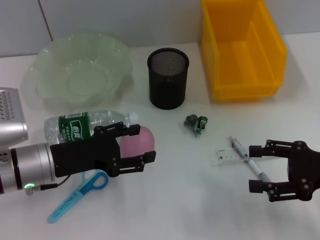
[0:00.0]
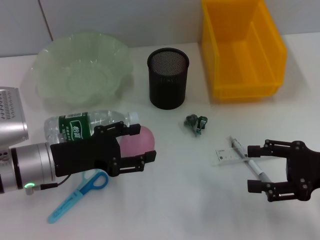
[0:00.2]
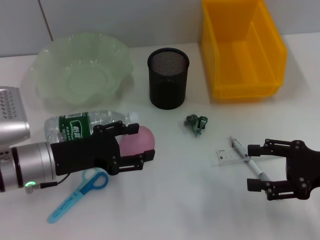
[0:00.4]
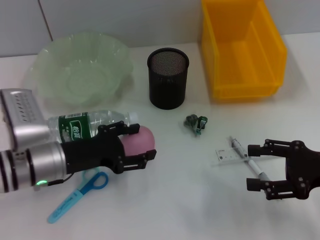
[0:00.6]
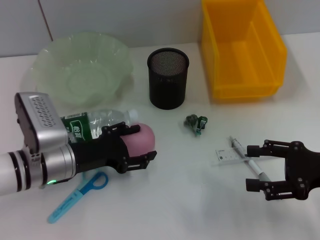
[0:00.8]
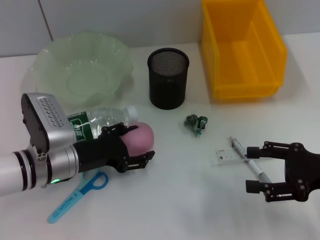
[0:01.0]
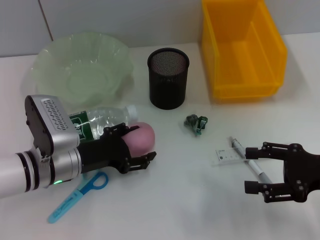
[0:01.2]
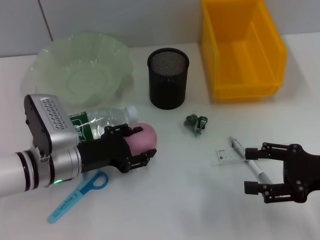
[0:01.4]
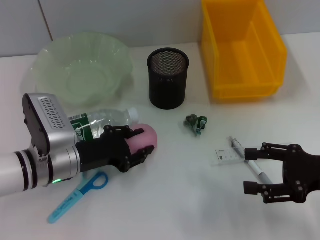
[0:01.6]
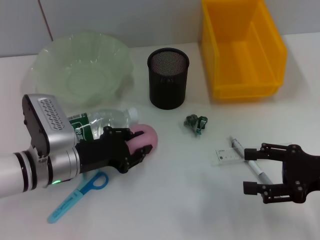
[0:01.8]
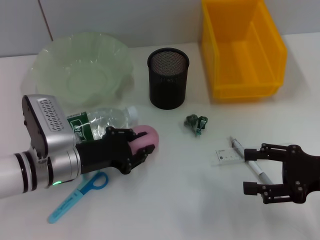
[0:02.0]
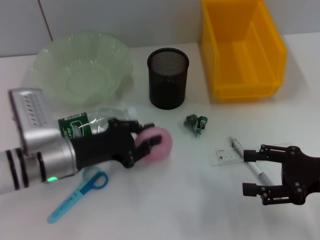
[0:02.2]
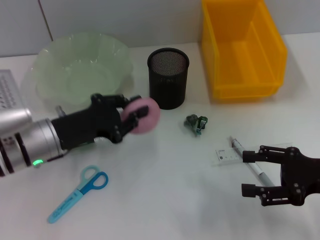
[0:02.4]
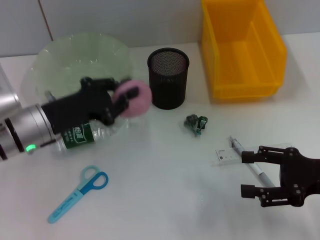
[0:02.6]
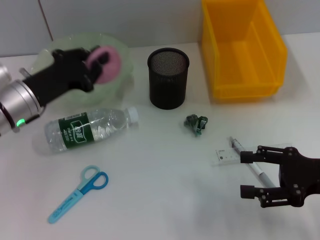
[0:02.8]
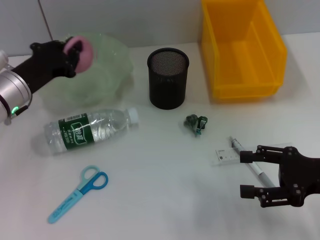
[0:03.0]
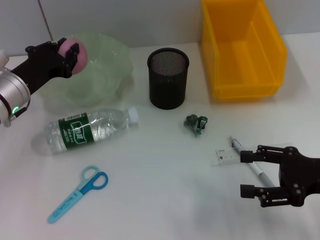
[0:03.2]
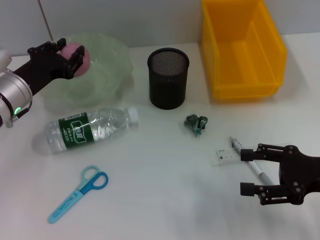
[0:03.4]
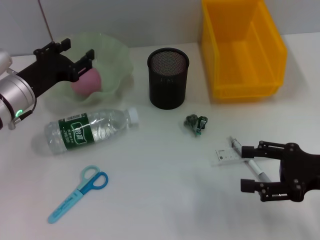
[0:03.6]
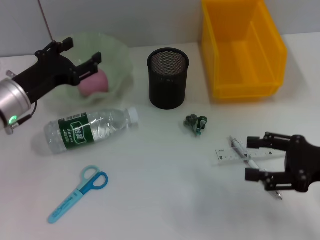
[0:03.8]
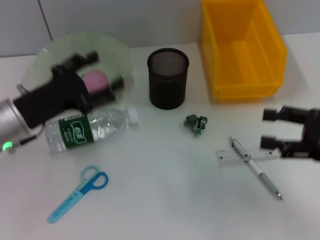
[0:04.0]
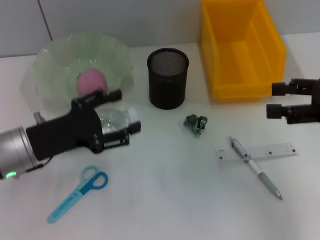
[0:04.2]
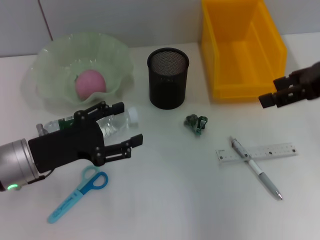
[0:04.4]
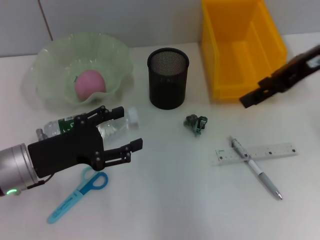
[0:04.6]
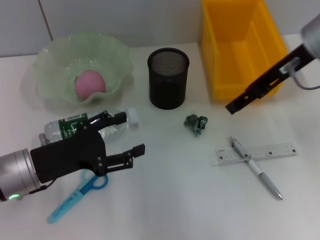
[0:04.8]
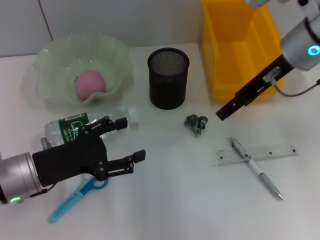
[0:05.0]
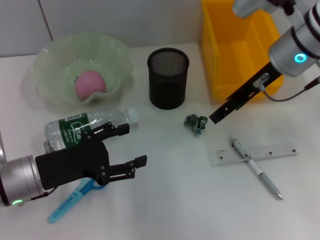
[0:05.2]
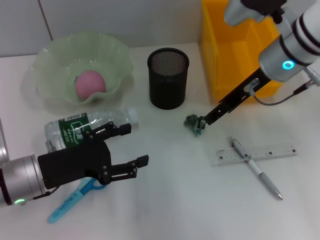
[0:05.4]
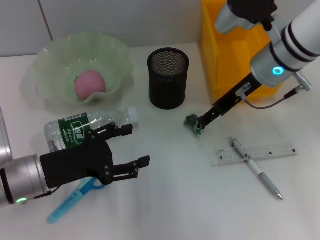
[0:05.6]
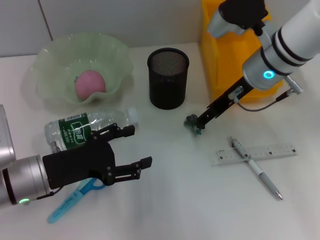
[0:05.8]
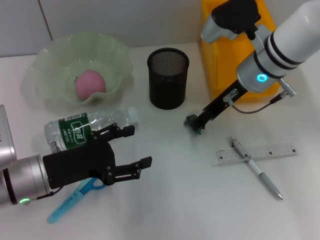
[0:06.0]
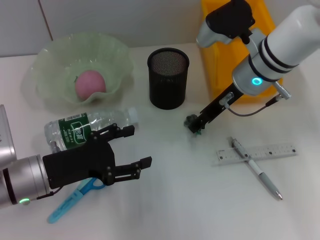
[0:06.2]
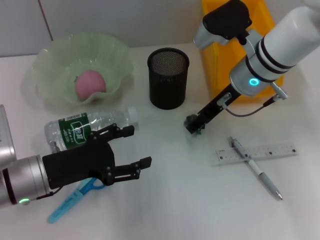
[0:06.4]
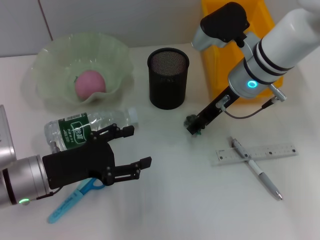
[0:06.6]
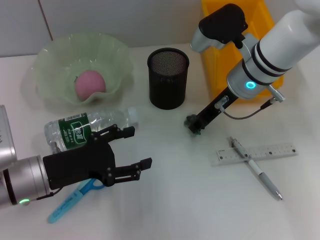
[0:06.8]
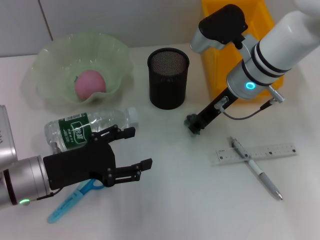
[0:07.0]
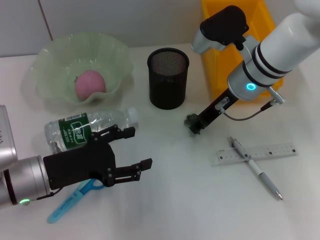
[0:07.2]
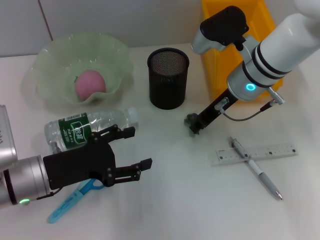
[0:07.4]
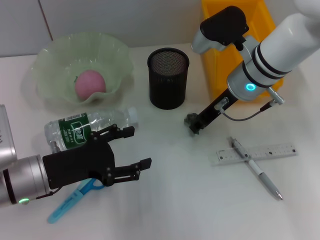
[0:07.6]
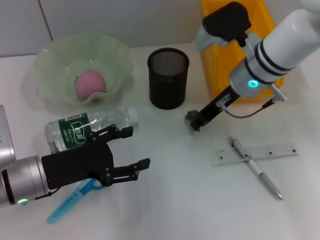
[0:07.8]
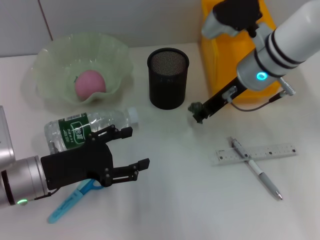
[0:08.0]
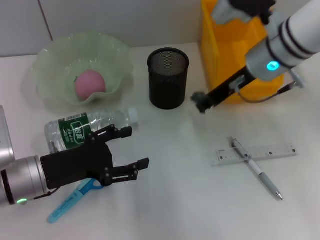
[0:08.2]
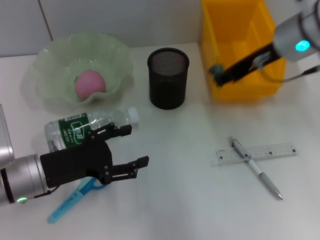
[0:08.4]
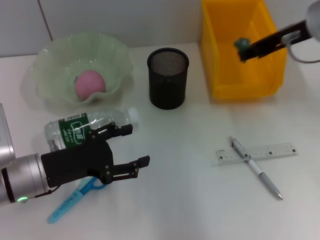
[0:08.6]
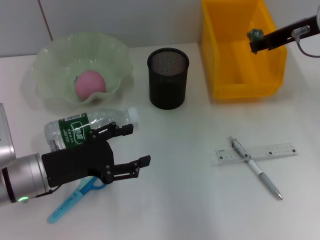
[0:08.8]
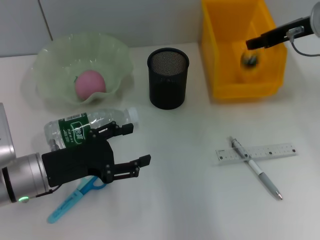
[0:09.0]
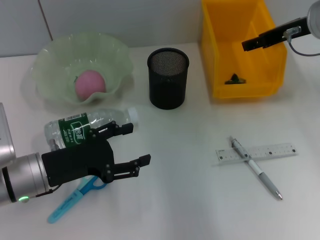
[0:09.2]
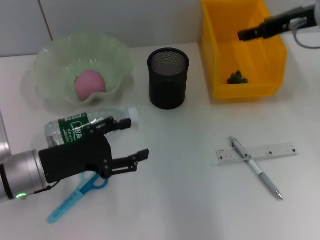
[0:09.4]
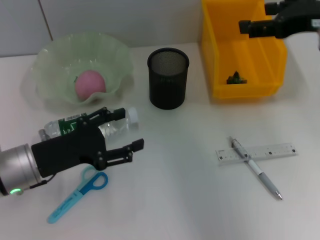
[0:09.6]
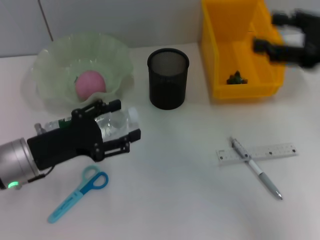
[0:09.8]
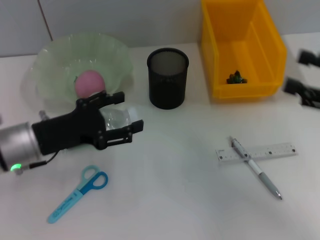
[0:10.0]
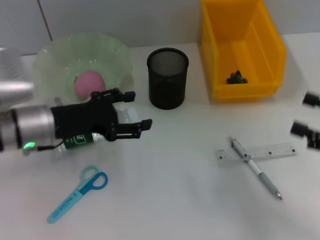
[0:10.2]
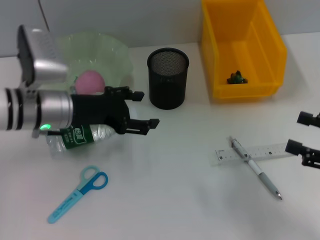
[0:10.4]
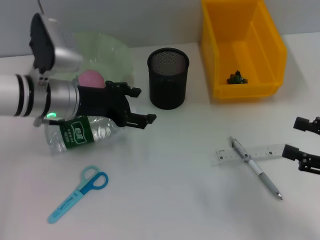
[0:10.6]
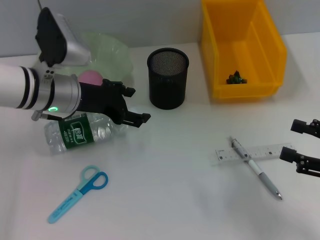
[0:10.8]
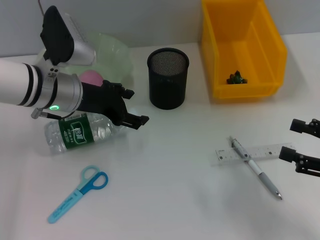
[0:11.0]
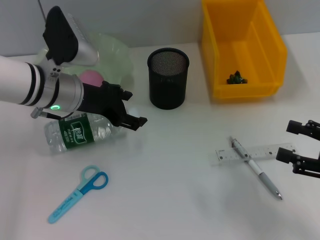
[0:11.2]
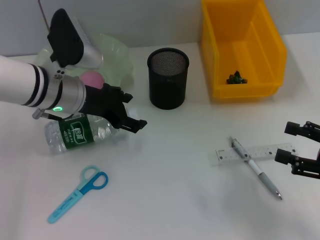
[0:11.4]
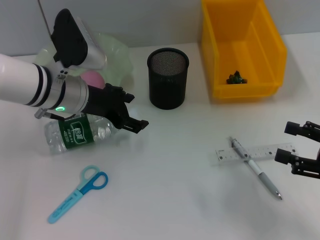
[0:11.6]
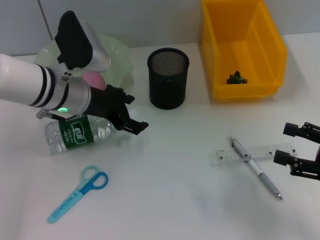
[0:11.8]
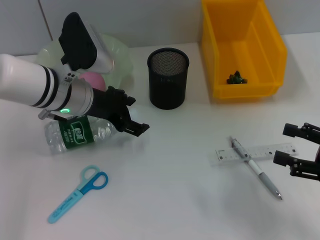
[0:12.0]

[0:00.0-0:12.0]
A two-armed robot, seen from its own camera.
Step, 0:00.0 to 0:02.0: Grab the peach with the left hand.
Step, 0:02.2 to 0:03.4: Place the peach into the fruit bowl with the left hand.
Step, 0:03.8 to 0:07.8: Grab the plastic with the right hand.
Step, 0:08.0 to 0:09.0: Place the plastic into the trash can with the right hand.
0:00.0 to 0:01.6: The grippers stay close to where they were, moving slightly.
0:01.6 to 0:03.0: The left gripper heads forward, to the left and upward, covering about 10 cm, and closes its fingers.
0:03.0 to 0:04.4: The left gripper heads backward, covering some 10 cm, and opens its fingers. Meanwhile the right gripper heads upward and forward, covering approximately 20 cm.
0:04.4 to 0:06.0: The right gripper travels to the left, downward and forward by some 20 cm.
0:06.0 to 0:07.6: The right gripper closes its fingers.
0:07.6 to 0:09.0: The right gripper is displaced to the right and upward by approximately 15 cm.
0:09.0 to 0:10.4: The right gripper goes roughly 25 cm backward, downward and to the right, and opens up. Meanwhile the left gripper moves forward and upward, some 10 cm.

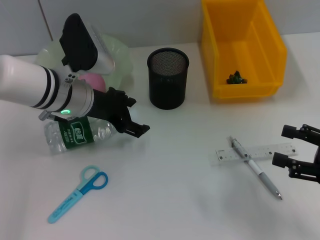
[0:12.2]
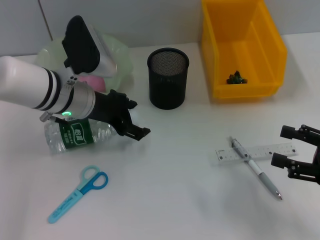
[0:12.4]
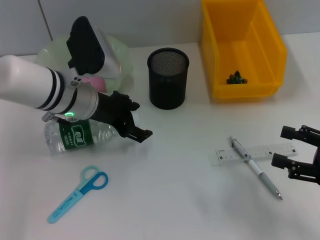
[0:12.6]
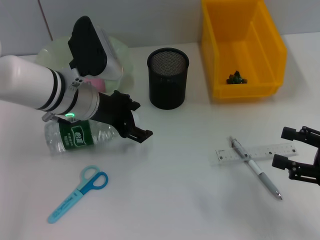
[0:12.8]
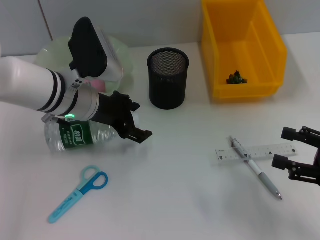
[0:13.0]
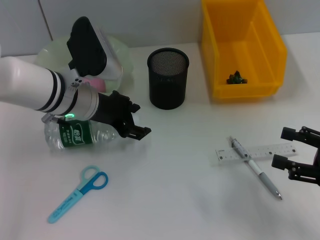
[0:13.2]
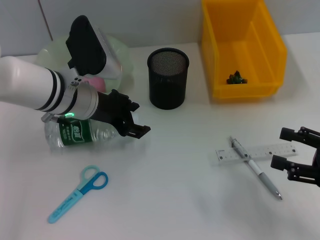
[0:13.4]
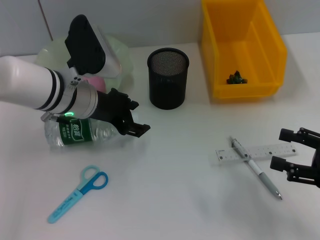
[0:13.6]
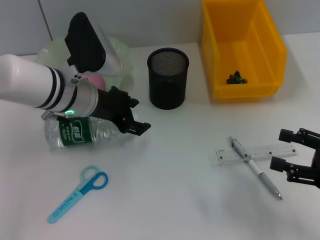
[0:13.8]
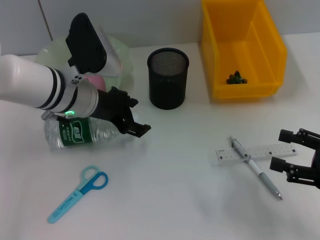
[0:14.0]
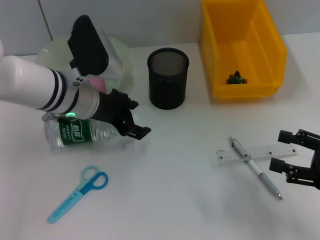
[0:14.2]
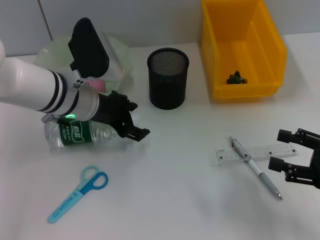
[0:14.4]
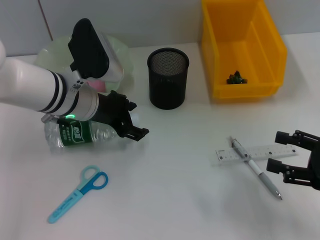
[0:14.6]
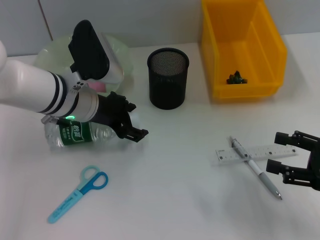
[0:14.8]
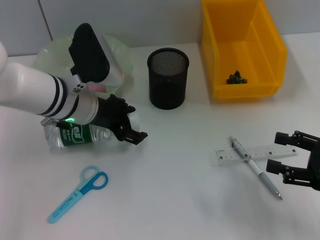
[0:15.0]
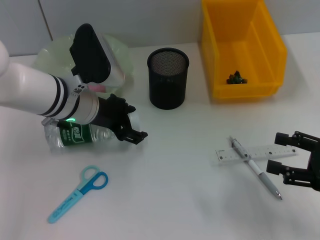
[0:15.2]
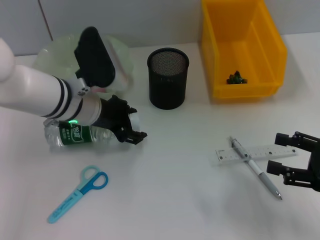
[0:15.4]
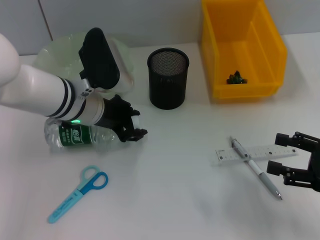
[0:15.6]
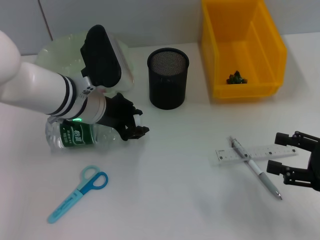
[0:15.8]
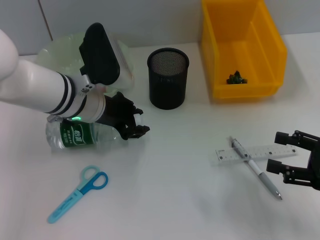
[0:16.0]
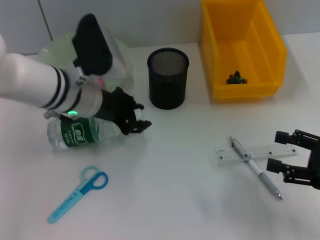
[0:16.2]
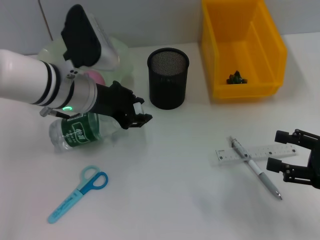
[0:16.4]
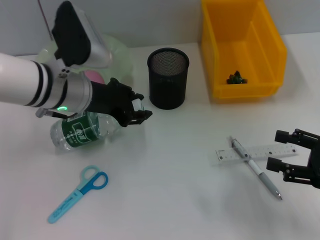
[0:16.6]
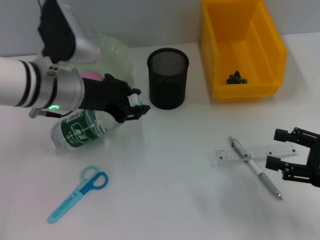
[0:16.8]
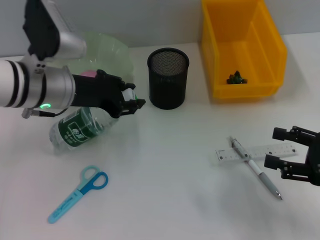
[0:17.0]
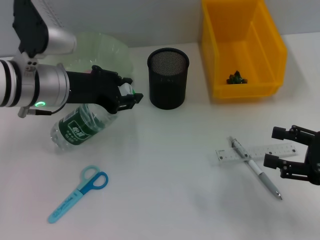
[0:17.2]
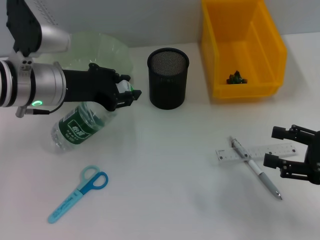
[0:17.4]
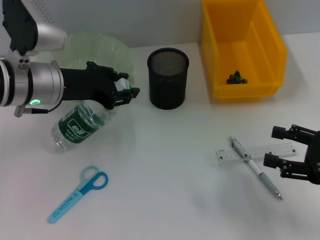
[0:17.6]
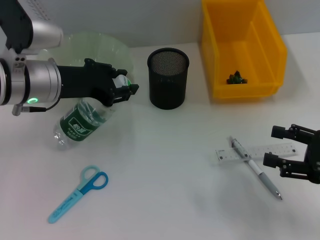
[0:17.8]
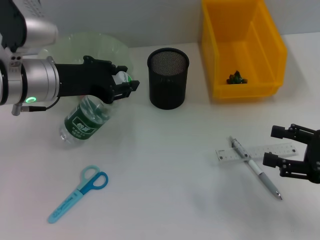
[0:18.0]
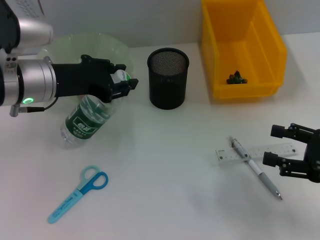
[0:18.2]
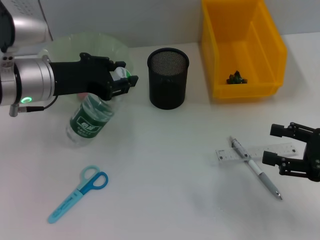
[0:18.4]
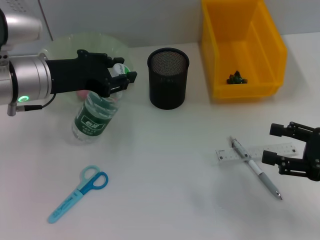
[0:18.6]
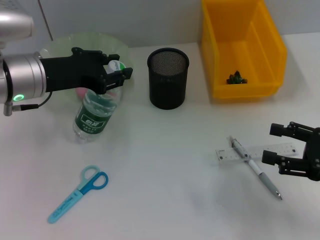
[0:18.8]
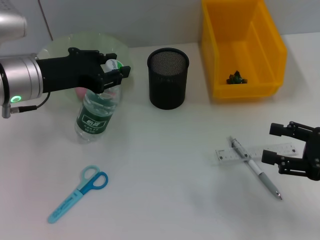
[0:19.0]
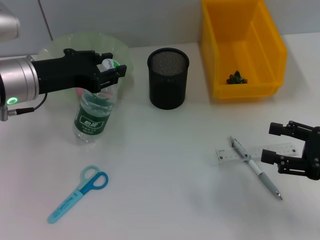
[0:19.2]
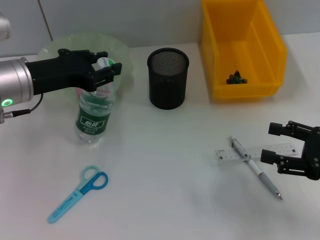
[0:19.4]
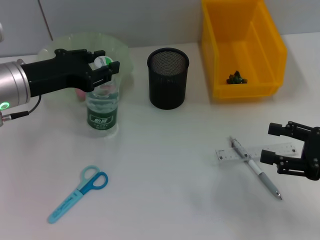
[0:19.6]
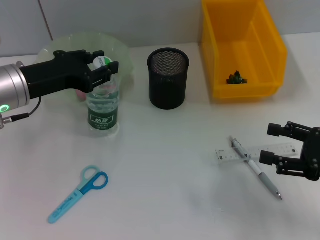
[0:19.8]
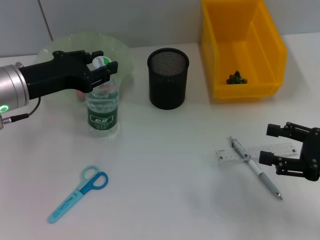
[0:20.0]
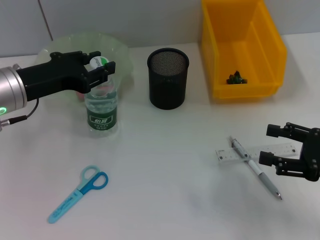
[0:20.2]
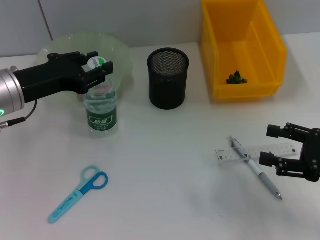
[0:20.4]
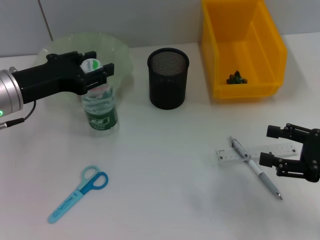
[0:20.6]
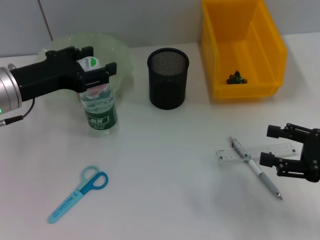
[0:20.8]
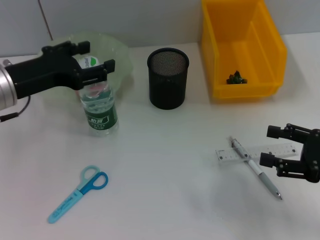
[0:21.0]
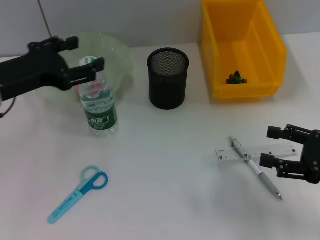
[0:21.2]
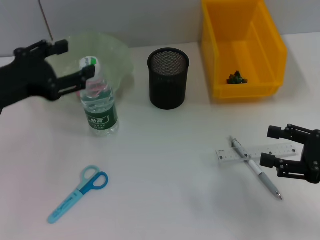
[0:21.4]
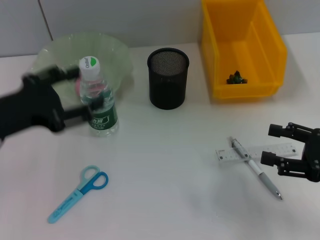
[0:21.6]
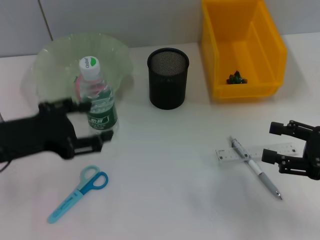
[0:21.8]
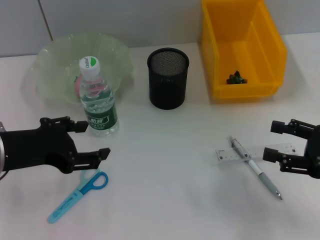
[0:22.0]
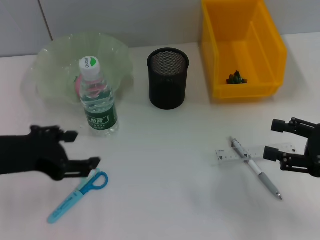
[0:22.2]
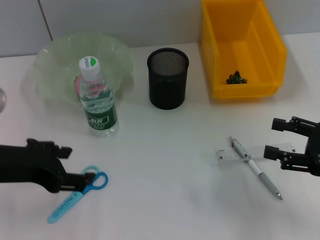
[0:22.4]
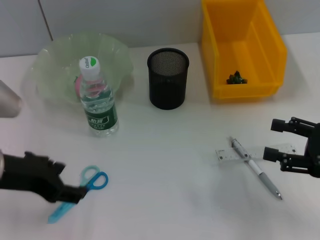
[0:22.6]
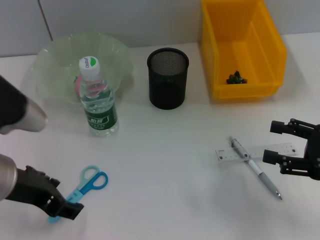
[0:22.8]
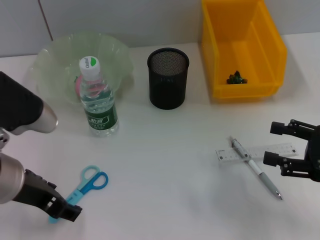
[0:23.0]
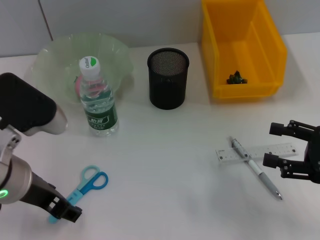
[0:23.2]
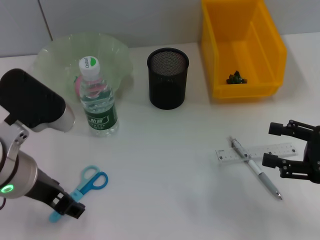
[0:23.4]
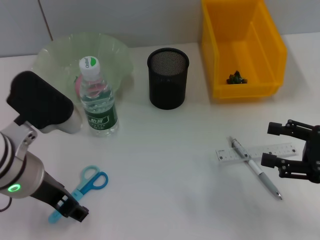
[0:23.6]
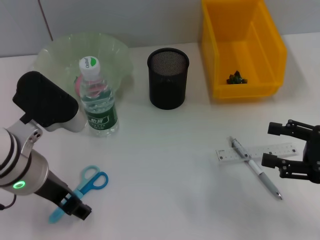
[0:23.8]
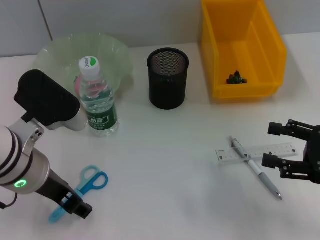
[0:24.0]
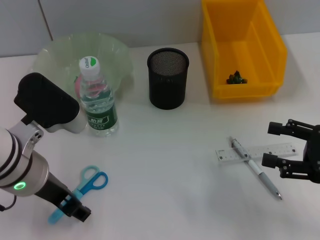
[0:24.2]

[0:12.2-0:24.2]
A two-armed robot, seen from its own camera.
Step, 0:12.2 to 0:16.0: Grab the water bottle with the left hand.
Step, 0:16.2 to 0:20.8: Place the water bottle on the table with the left hand.
0:12.2 to 0:13.8: The grippers make only small movements.
0:13.8 to 0:15.2: Both grippers stay about where they are.
0:15.2 to 0:16.6: The left gripper closes its fingers.
0:16.6 to 0:18.2: The left gripper shifts by approximately 5 cm.
0:18.2 to 0:19.8: The grippers make only small movements.
0:19.8 to 0:21.2: The left gripper opens up.
0:21.2 to 0:22.6: The left gripper shifts some 5 cm backward.
0:22.6 to 0:24.2: The left gripper heads to the right, covering some 5 cm.
